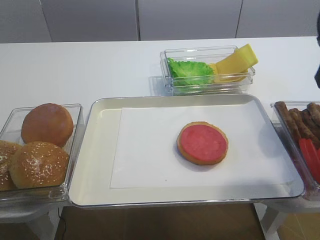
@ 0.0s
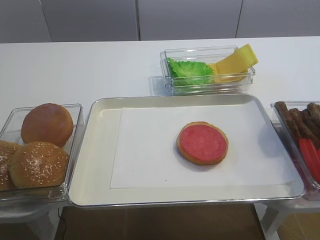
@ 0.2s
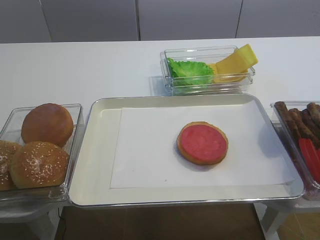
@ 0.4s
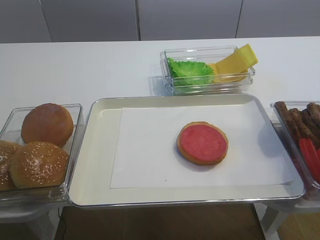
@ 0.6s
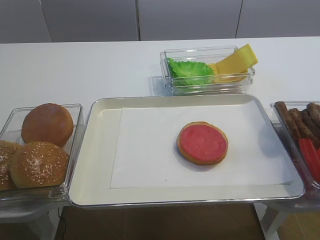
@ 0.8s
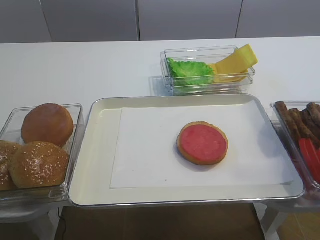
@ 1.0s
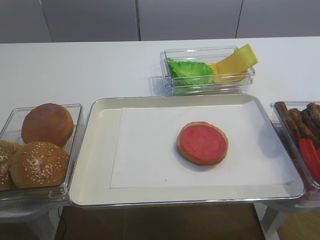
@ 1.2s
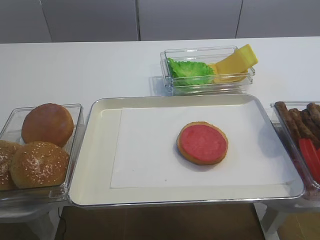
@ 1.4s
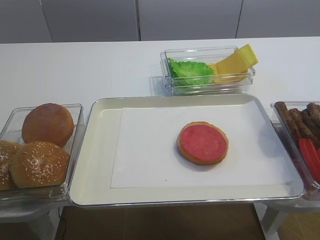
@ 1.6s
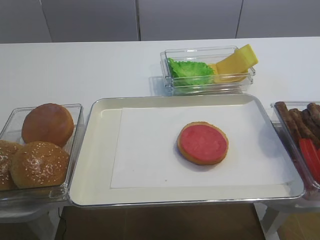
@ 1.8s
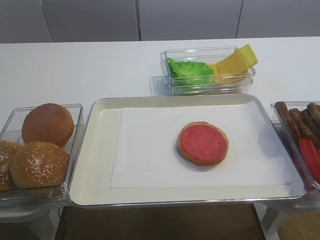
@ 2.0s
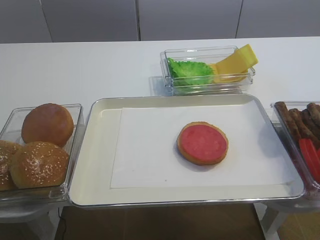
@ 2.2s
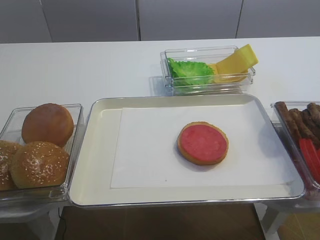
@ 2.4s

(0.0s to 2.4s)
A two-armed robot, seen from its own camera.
0.0s - 1.2s: The right gripper moves backward, about 25 cm.

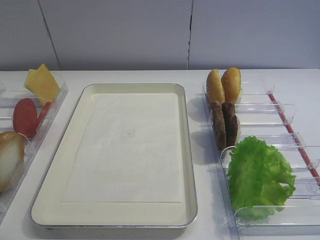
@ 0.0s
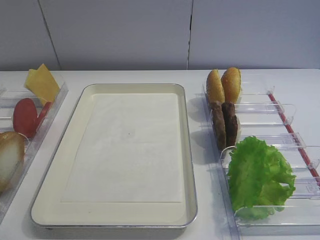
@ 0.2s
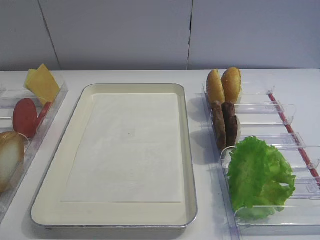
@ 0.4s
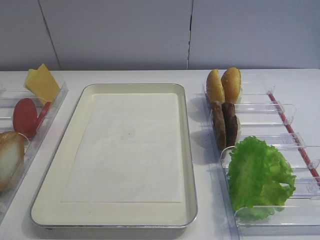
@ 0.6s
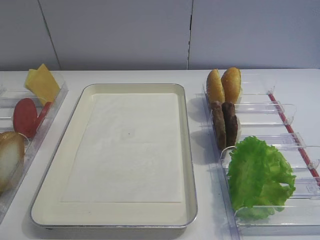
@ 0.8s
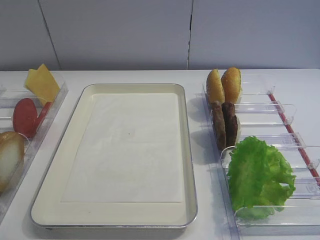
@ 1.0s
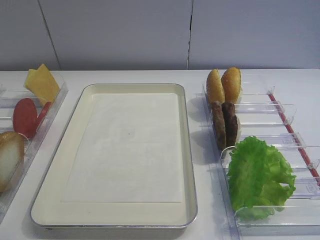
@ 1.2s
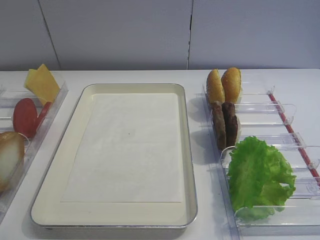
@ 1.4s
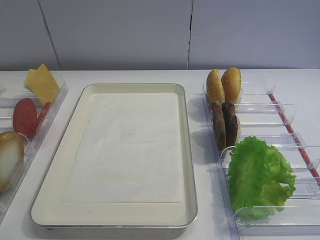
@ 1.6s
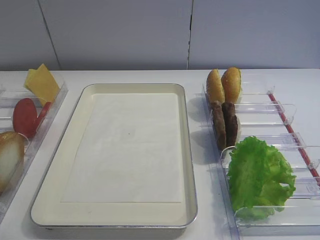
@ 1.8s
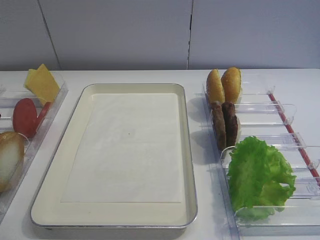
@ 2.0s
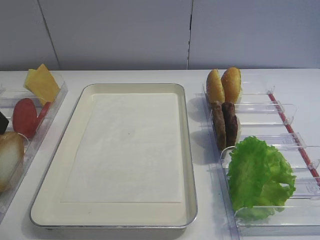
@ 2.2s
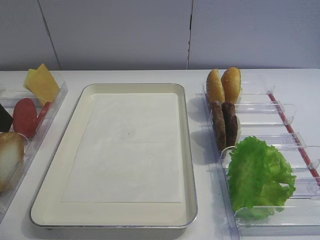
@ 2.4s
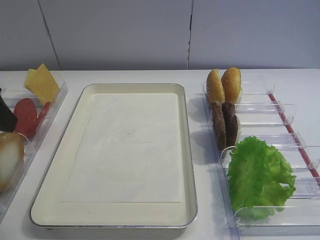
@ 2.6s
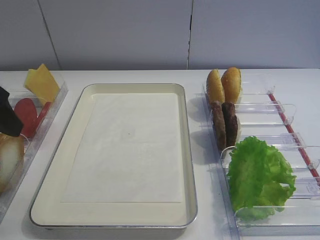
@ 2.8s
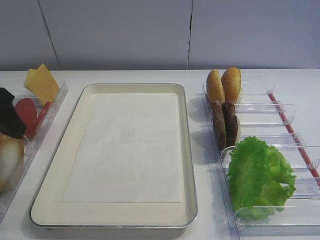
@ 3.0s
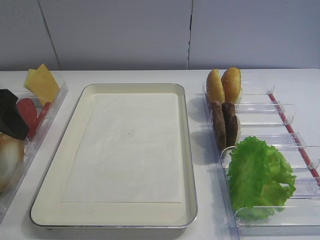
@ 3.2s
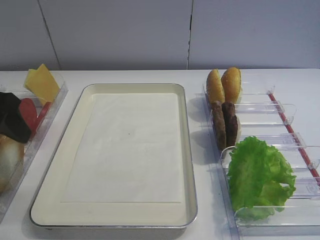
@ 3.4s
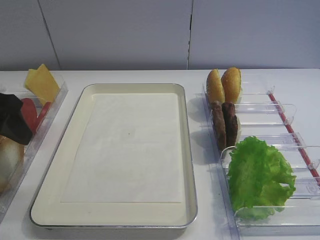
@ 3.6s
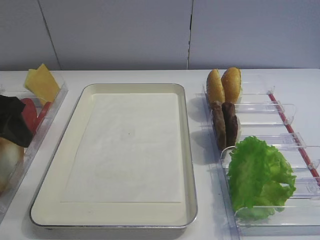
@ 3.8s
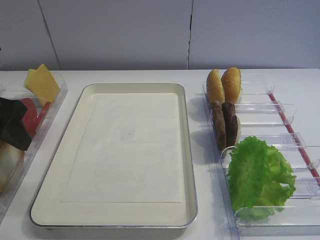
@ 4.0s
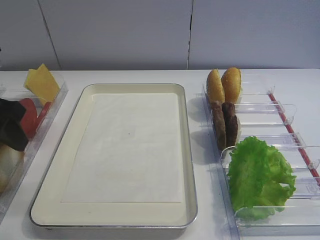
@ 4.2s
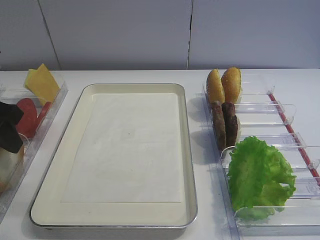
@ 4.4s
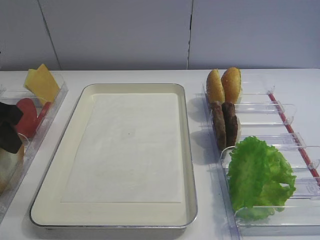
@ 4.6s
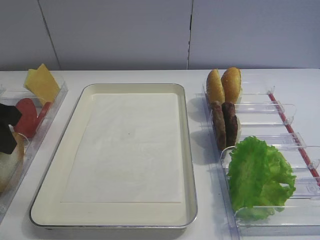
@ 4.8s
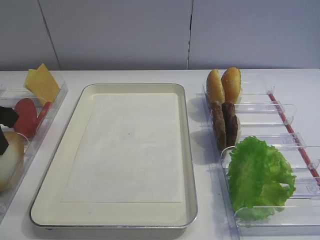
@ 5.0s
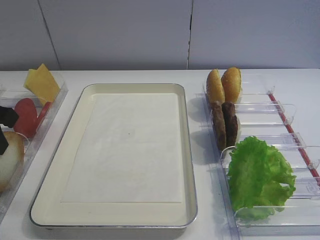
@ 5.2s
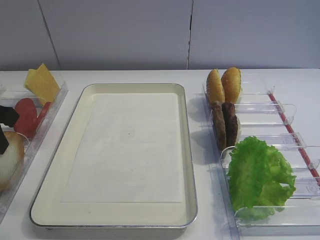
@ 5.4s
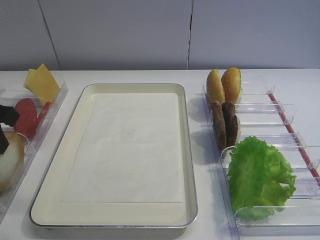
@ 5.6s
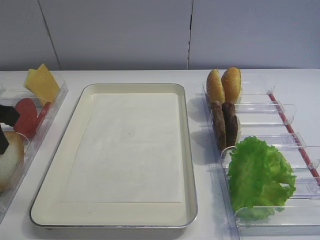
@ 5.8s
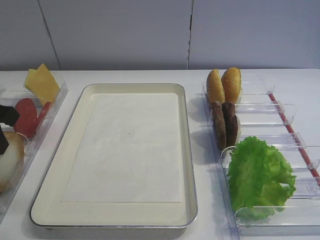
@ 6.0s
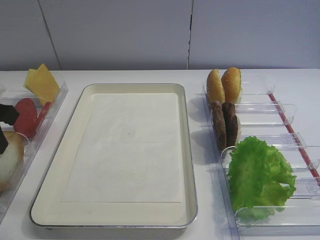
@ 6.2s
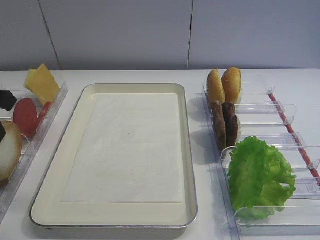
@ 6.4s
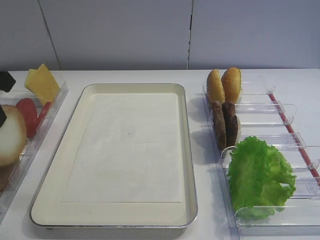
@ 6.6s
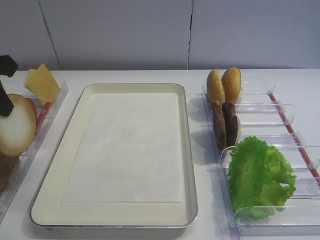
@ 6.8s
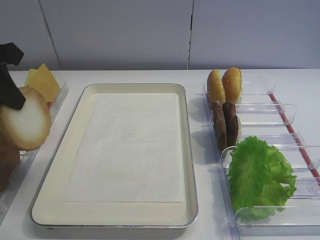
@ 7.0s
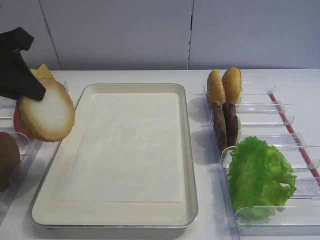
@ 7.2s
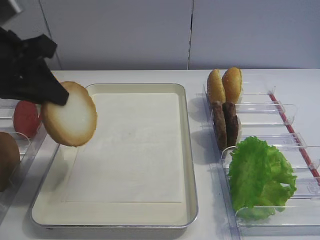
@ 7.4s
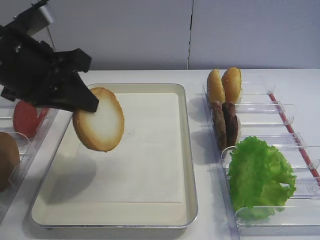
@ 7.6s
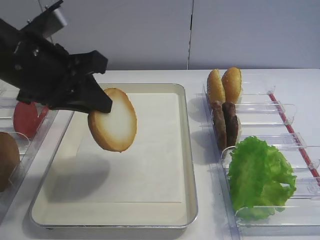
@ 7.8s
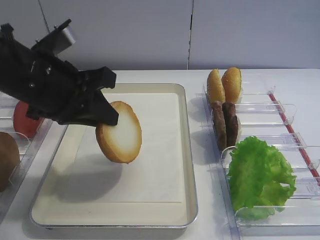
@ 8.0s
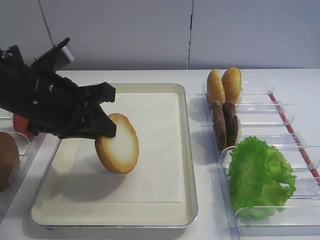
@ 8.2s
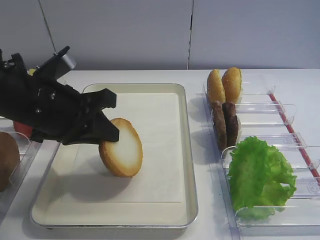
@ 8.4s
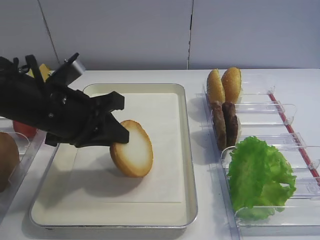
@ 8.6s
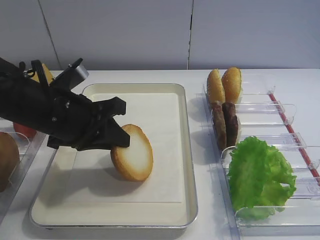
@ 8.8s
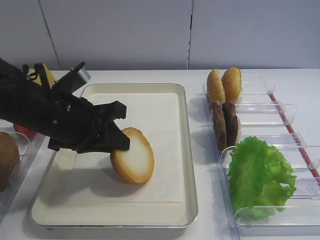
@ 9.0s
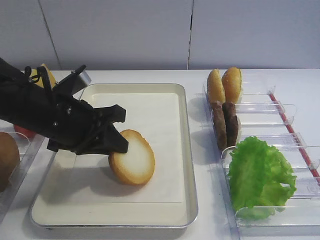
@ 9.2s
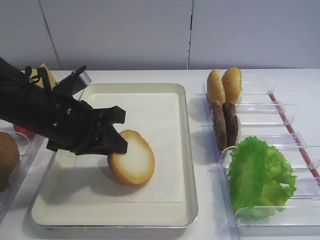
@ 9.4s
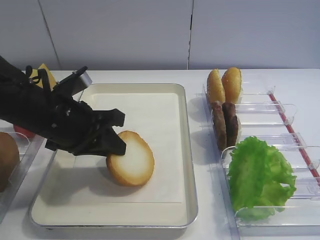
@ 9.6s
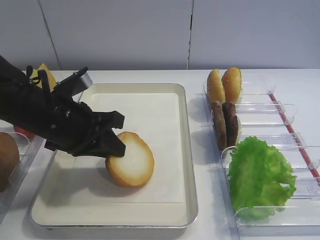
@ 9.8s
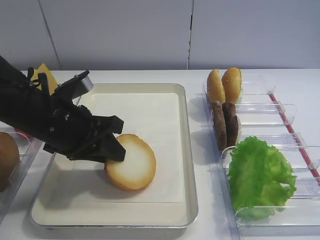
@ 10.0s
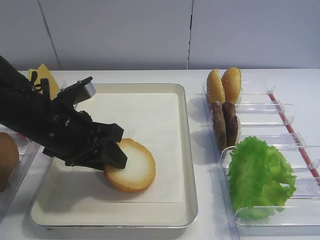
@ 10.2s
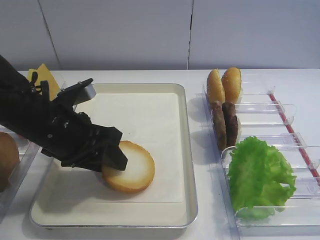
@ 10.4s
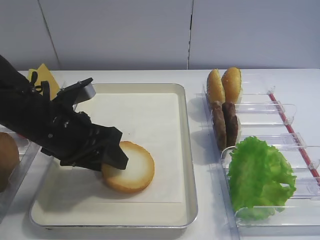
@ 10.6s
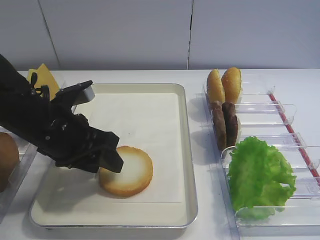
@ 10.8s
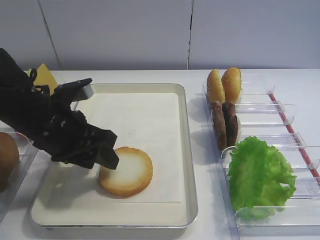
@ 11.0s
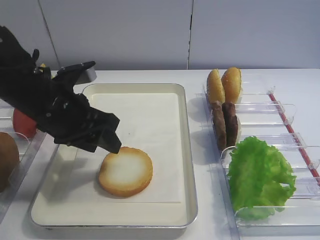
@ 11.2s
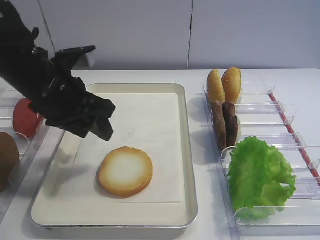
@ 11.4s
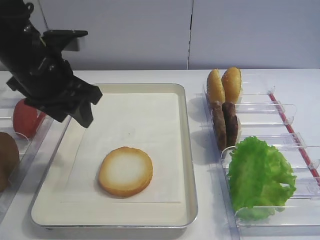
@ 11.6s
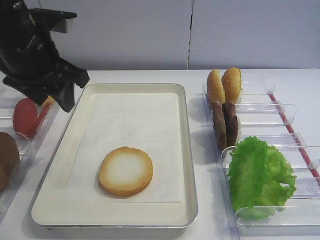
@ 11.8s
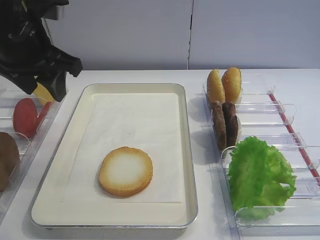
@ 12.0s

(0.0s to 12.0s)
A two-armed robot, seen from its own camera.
Step, 0.0s - 6.6s: Pick up the bread slice with the left gripper.
Step, 6.8s - 11.8s: Place the bread slice on the tray with the left gripper.
1.6s - 3.0s: The left gripper heads forward and downward, covering some 15 cm.
3.0s - 4.4s: The left gripper closes.
4.4s - 6.0s: The left gripper closes its fingers.
6.0s - 7.6s: The left gripper is displaced to the right by approximately 10 cm.
7.6s - 9.0s: The left gripper travels downward by about 10 cm.
9.0s - 10.4s: The left gripper opens its fingers.
10.4s - 12.0s: The left gripper moves upward and forward, about 15 cm.

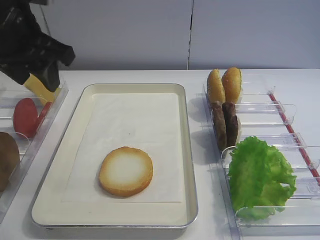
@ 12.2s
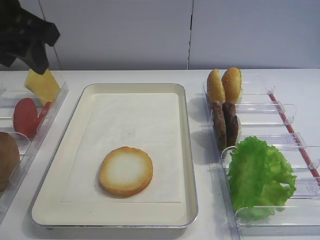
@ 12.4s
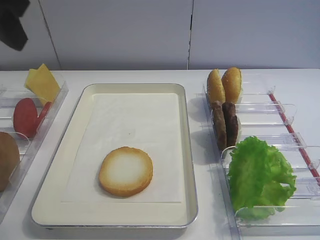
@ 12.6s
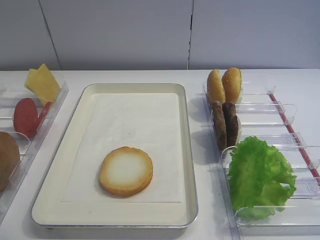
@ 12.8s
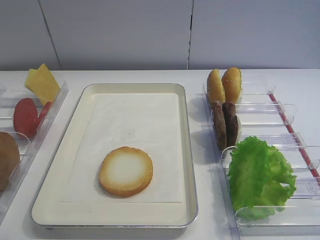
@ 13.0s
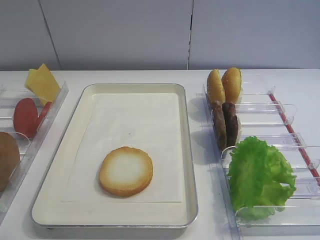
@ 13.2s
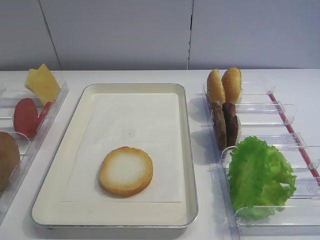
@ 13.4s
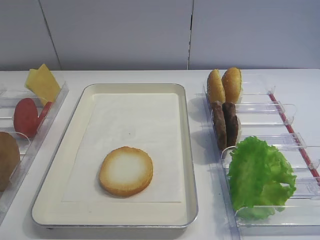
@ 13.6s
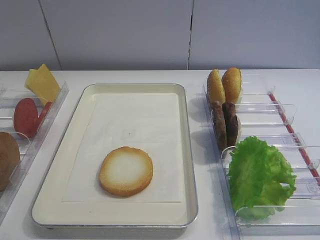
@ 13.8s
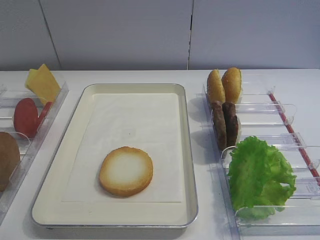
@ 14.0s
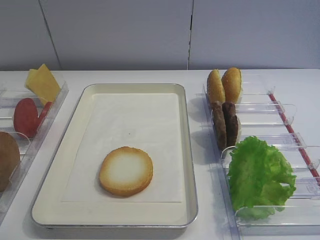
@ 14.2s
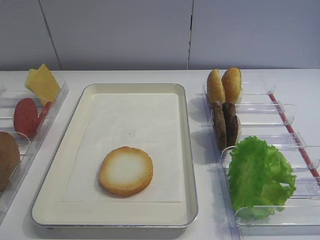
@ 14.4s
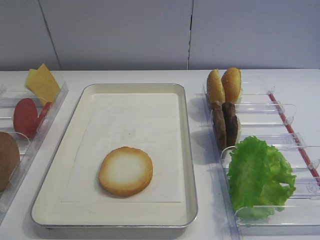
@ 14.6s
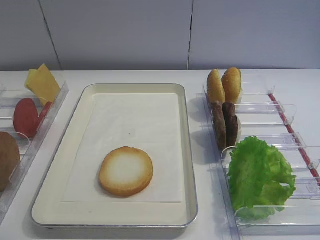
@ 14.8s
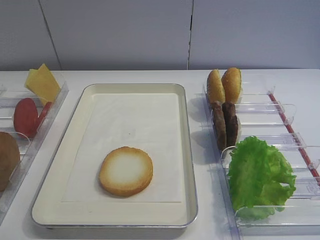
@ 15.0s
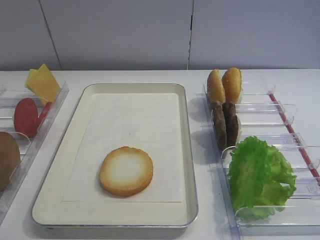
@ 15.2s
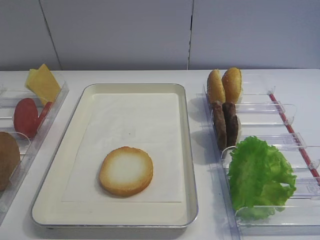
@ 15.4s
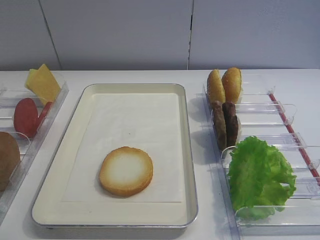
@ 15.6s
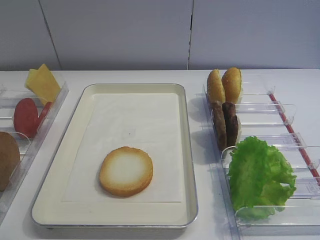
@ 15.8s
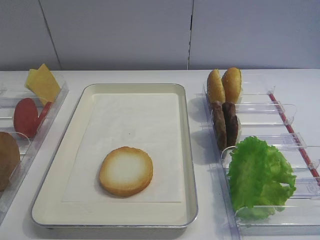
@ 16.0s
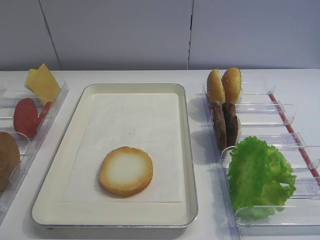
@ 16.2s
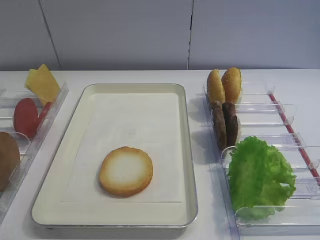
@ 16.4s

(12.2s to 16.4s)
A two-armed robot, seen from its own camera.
12.2s - 13.6s: The left gripper is displaced backward by some 30 cm.
